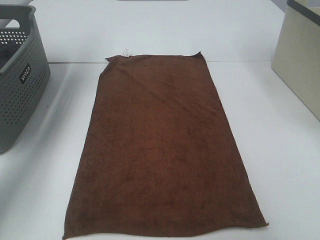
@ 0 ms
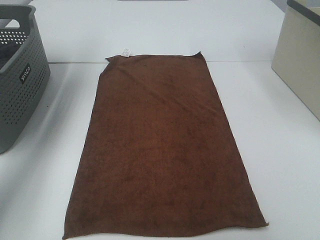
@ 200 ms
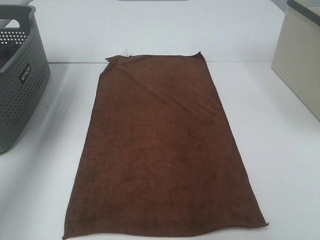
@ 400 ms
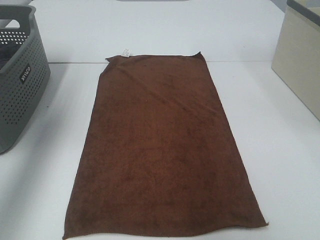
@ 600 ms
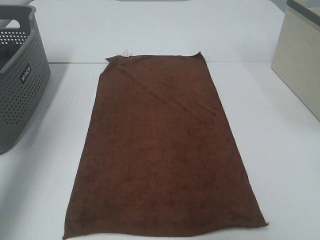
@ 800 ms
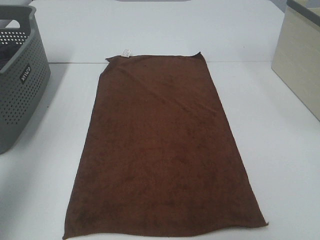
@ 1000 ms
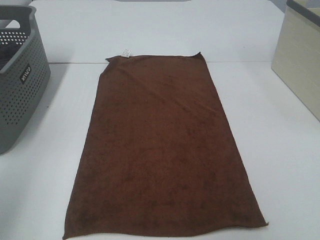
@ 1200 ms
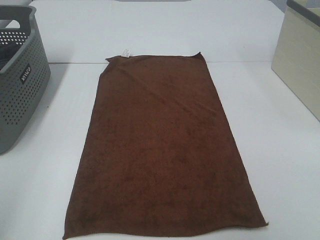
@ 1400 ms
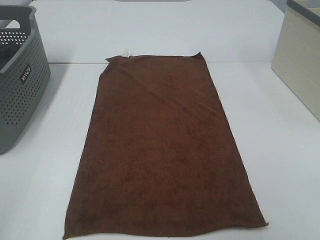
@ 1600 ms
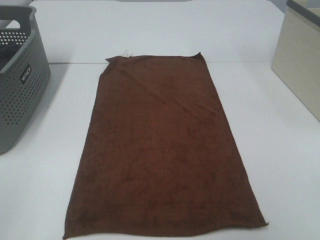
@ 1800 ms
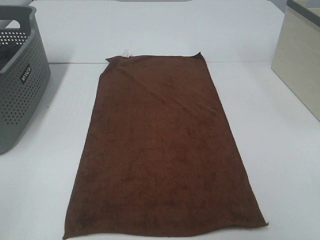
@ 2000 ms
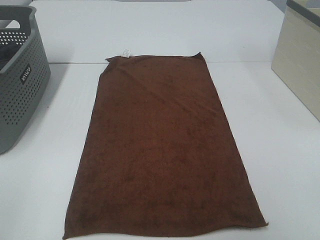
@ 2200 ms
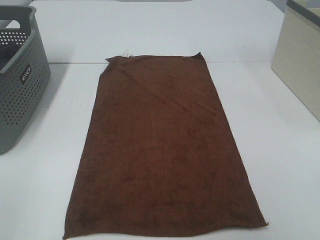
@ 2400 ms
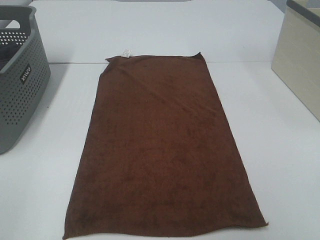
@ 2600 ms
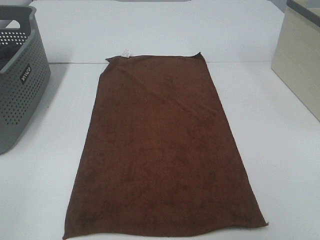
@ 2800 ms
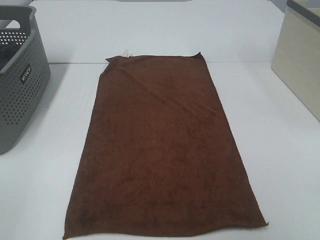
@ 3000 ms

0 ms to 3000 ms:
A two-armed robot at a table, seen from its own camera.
Task of the whole recording: Remove the towel and place it.
0 ms to 1600 ms: The left gripper moves backward, about 50 cm.

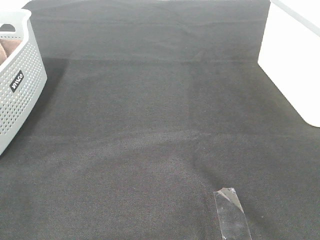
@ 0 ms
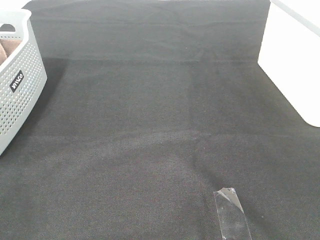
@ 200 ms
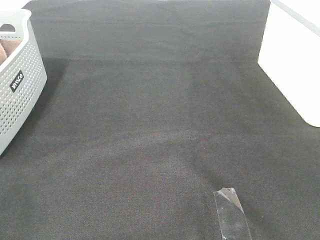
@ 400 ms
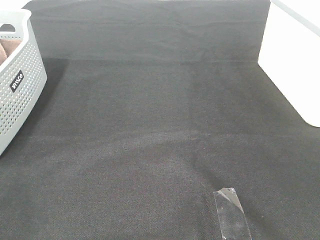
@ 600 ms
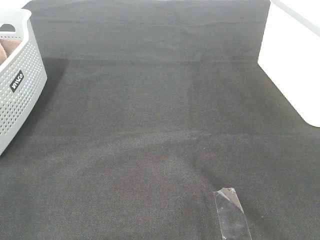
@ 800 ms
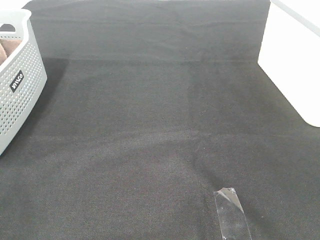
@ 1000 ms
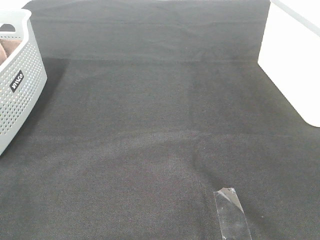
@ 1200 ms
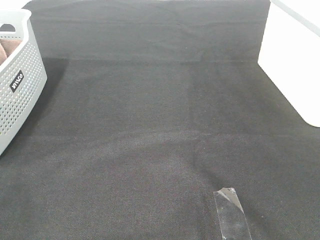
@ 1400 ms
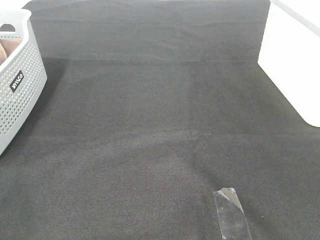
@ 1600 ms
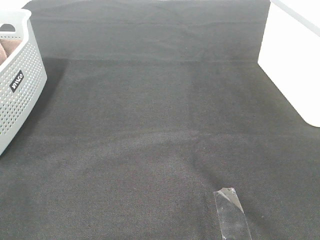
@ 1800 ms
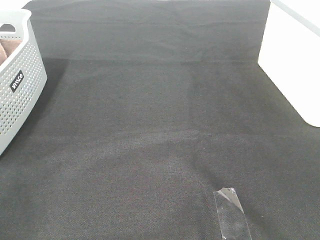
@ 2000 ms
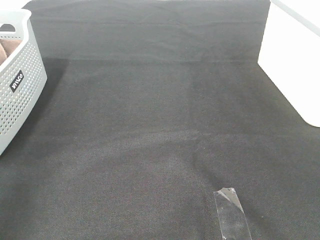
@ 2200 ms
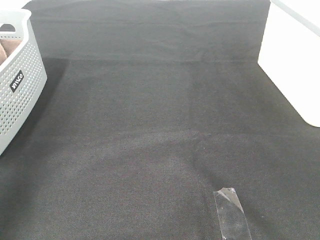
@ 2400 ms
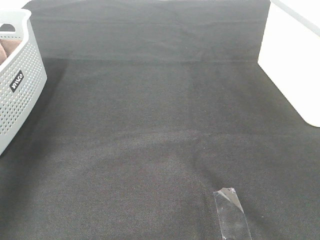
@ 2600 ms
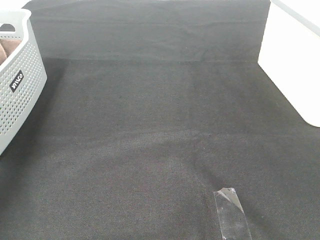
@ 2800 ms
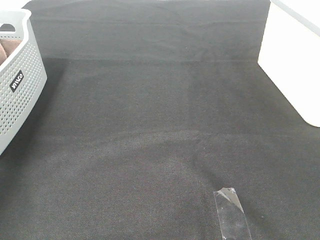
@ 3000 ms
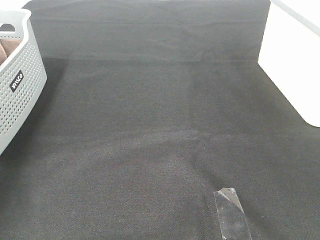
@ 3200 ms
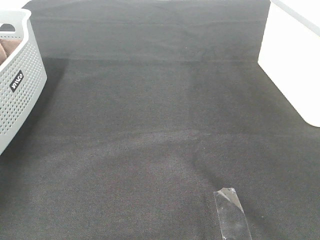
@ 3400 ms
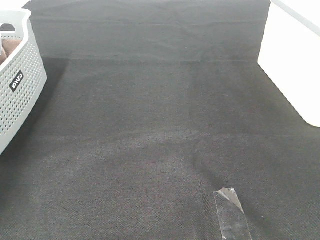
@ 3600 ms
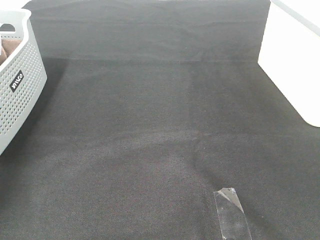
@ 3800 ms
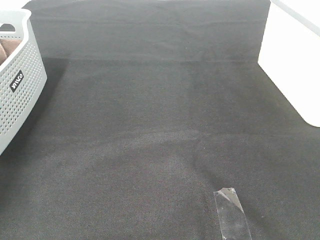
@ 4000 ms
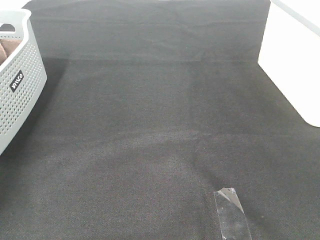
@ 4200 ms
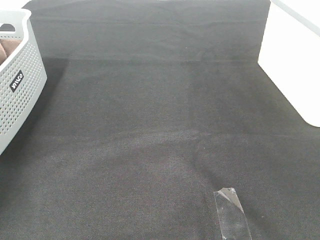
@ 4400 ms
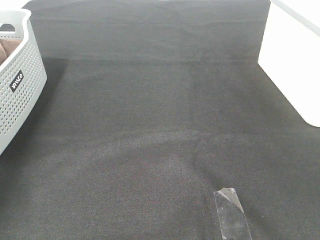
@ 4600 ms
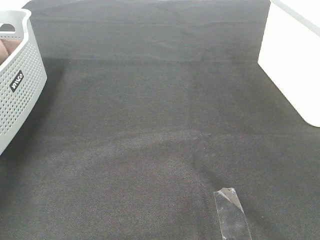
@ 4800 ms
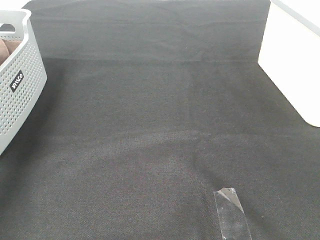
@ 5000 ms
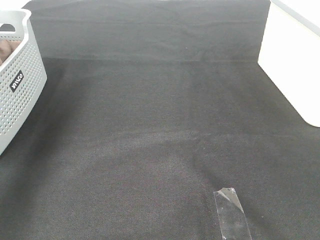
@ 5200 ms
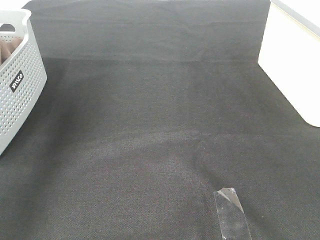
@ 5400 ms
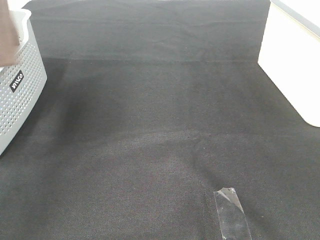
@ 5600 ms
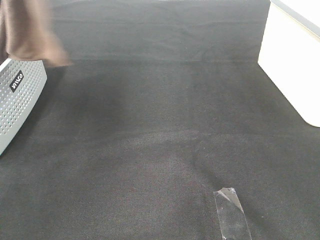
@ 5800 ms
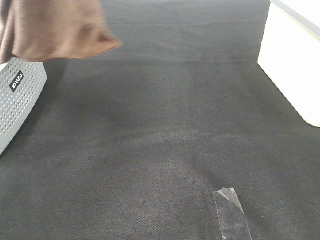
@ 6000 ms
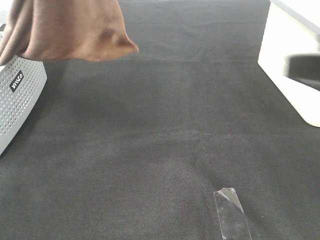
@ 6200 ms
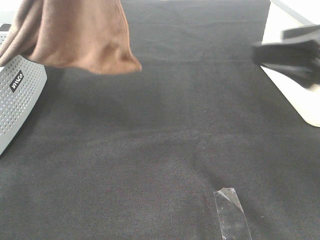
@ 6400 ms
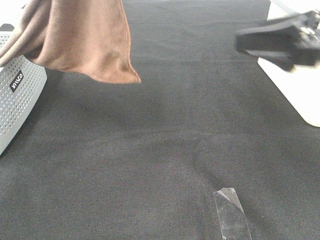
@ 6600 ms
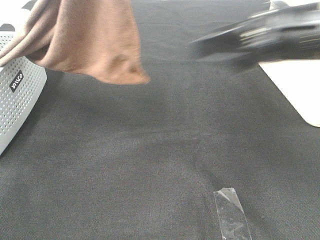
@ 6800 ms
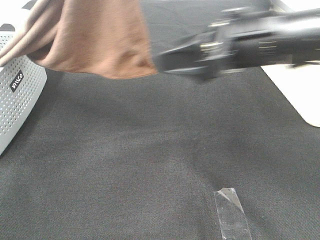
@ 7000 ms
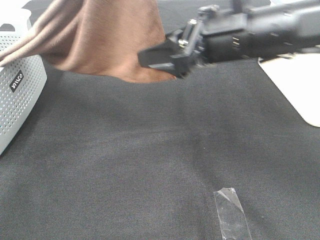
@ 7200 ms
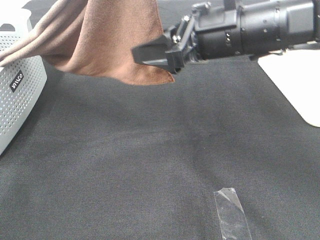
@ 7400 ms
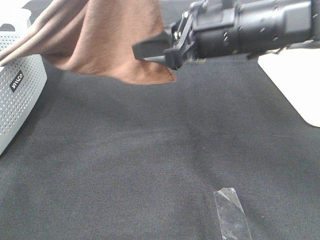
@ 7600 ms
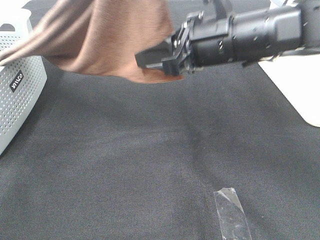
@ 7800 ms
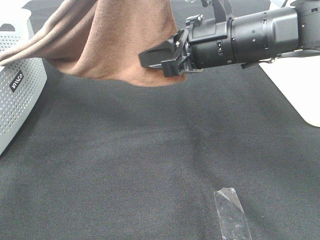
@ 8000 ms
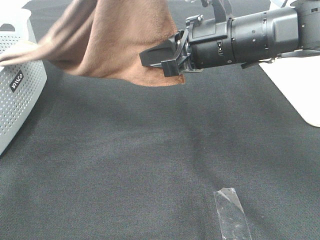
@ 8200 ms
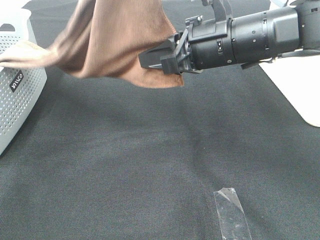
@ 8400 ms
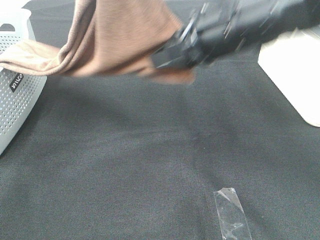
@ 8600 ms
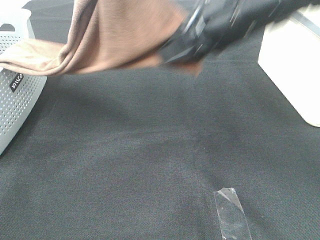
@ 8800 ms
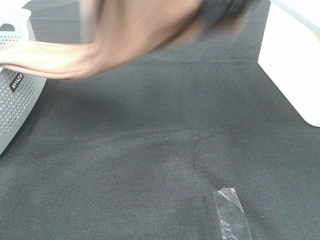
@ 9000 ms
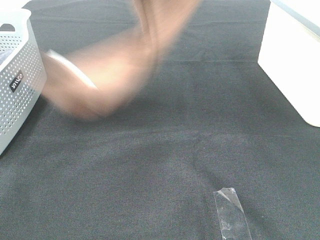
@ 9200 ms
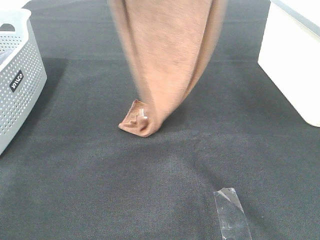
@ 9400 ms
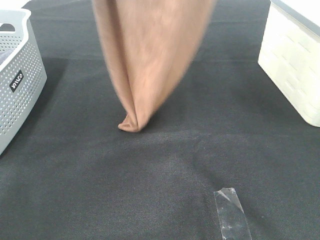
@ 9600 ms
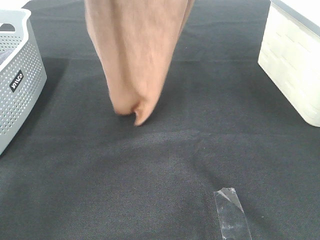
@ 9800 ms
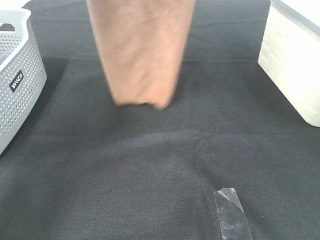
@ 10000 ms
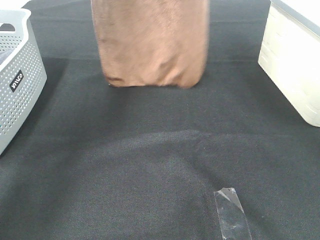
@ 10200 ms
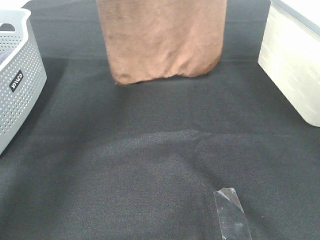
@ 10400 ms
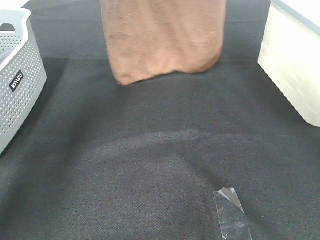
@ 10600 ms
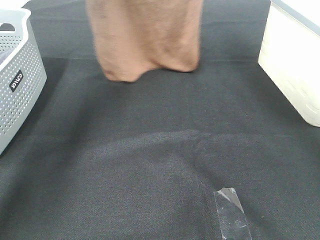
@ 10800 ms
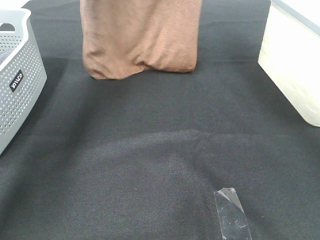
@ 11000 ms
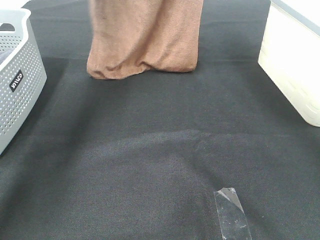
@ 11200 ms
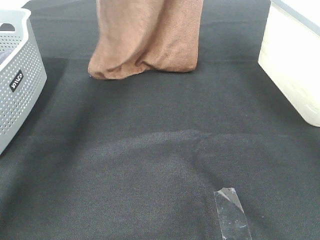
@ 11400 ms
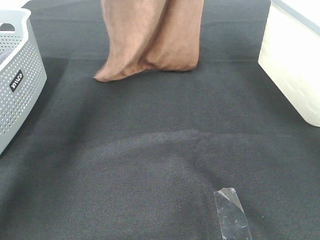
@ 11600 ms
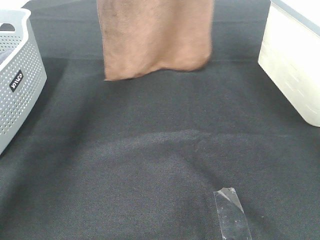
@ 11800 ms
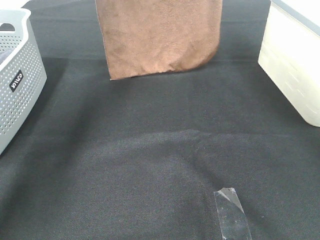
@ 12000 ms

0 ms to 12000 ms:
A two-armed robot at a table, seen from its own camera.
Task of the whole recording: Remove the towel and place it.
Step, 5800 ms to 8200 ms: Right hand: grab a corner of the brown towel and straighten it.
0 ms to 1600 ms: Both grippers stay put.
1600 ms to 3000 ms: The left gripper moves forward, about 40 cm.
4400 ms to 6000 ms: The right gripper shifts about 10 cm forward. The left gripper heads upward, to the right and backward, covering approximately 40 cm.
6000 ms to 7600 ms: The left gripper moves to the right, roughly 10 cm. The right gripper heads forward and to the left, covering approximately 25 cm.
7600 ms to 9000 ms: The right gripper heads upward, covering some 15 cm, and closes up.
9000 ms to 10400 ms: The right gripper shifts about 15 cm forward and upward. Meanwhile the left gripper is displaced forward and to the left by some 15 cm.
10400 ms to 12000 ms: The grippers make only small movements.

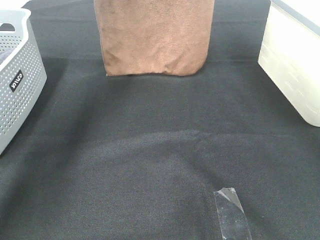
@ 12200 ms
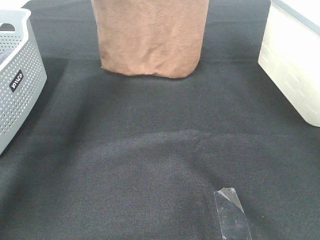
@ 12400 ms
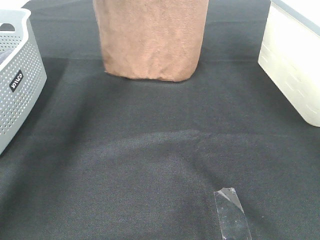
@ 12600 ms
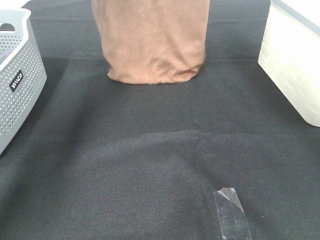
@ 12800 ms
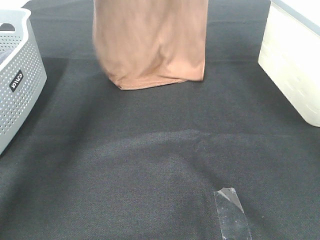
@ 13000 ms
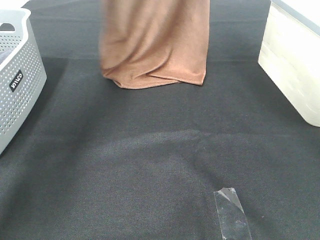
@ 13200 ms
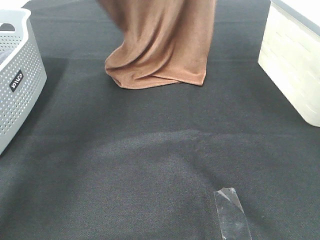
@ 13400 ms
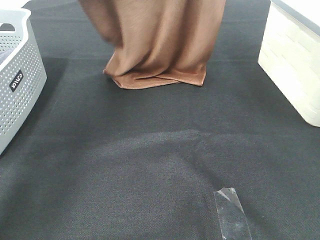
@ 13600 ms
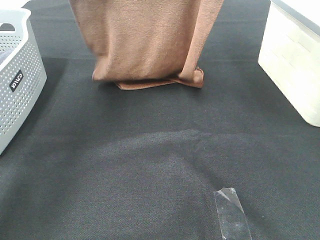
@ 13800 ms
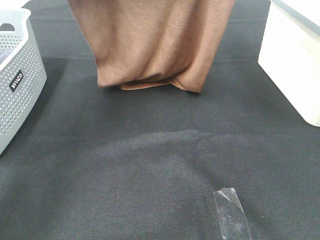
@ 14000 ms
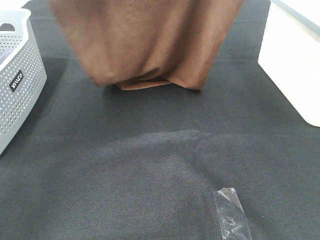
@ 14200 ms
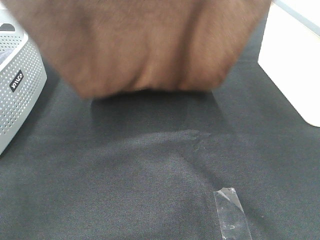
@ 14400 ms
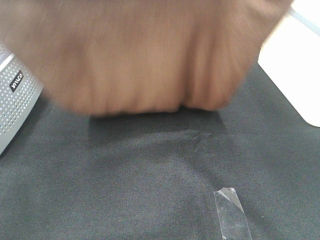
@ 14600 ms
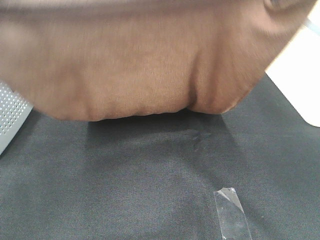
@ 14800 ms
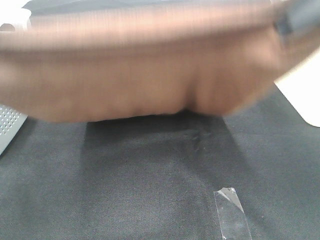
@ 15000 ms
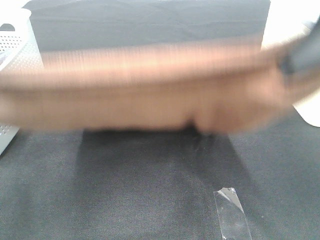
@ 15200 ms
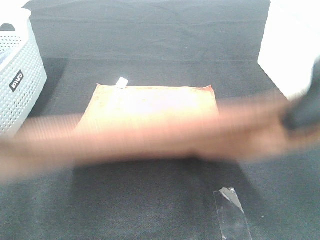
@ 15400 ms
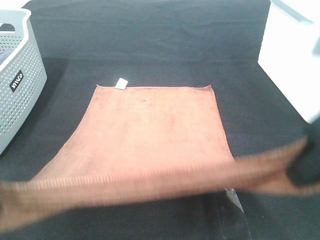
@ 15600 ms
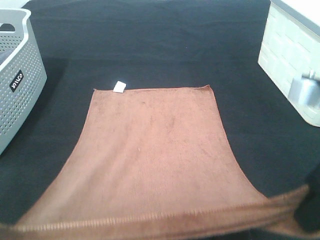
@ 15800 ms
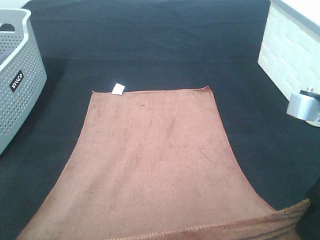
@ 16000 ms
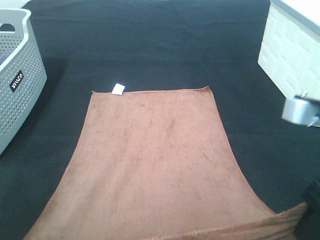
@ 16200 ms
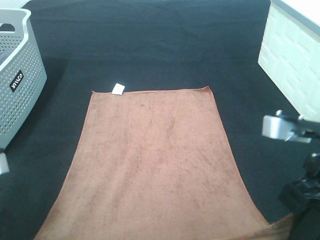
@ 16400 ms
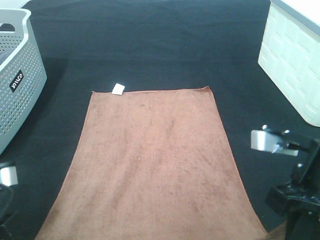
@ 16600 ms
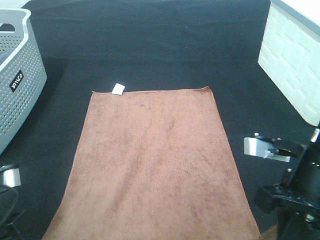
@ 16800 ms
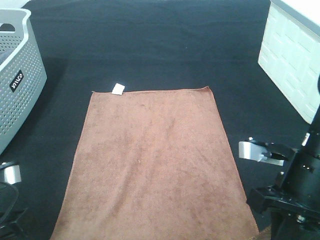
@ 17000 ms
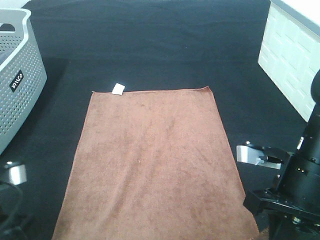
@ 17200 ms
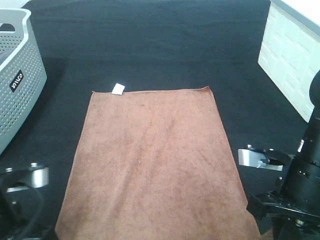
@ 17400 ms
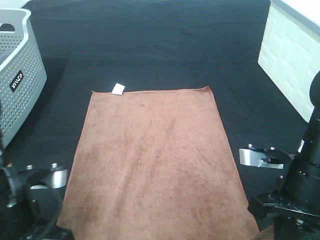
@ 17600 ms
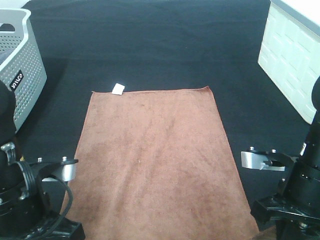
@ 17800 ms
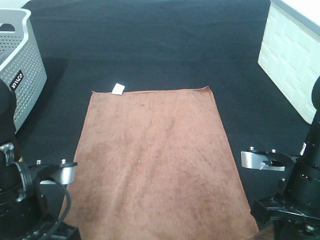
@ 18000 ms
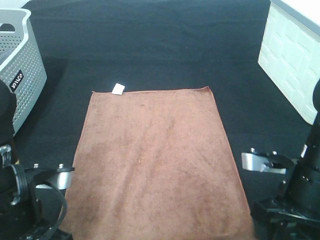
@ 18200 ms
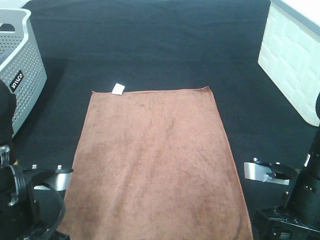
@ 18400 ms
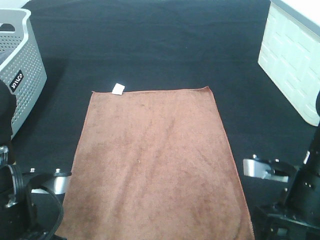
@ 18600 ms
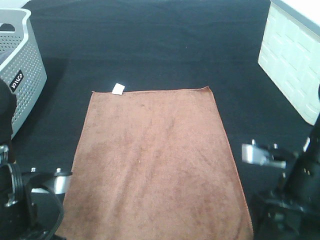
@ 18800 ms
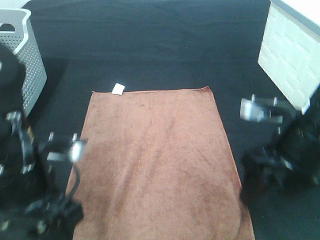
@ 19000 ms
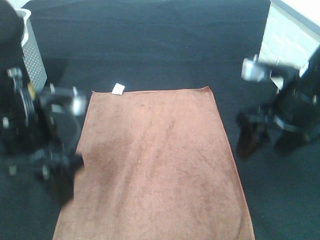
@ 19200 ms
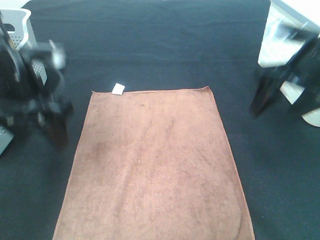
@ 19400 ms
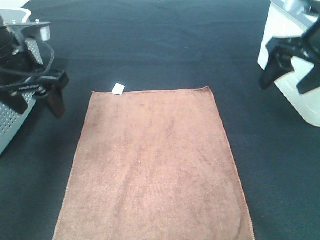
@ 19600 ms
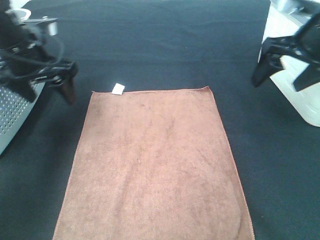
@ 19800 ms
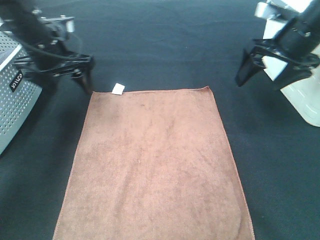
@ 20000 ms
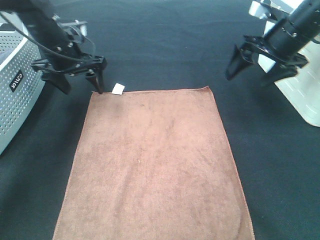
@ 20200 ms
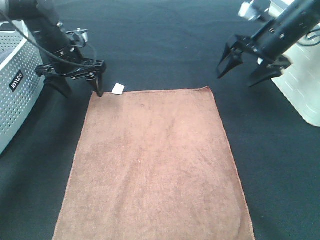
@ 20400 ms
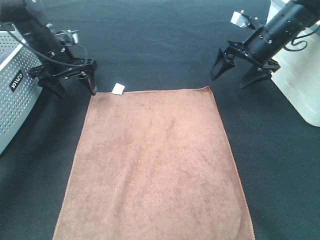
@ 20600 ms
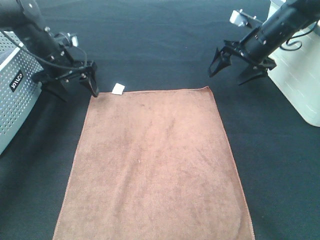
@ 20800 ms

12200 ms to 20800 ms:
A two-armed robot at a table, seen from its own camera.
Task of the whole recording: Remove the towel and place it.
Step, 12200 ms to 14600 ms: Left hand: spread the brown towel flat on the table.
Step, 12200 ms to 14600 ms: Right hand: spread the brown towel flat on the table.
12200 ms to 13600 ms: The grippers both shift backward by approximately 10 cm.
13600 ms to 15000 ms: The two grippers go approximately 25 cm backward.
15000 ms to 16600 ms: The two grippers go about 20 cm downward.
16600 ms to 18000 ms: The left gripper goes approximately 5 cm to the right. Meanwhile the right gripper changes place by some 5 cm.
18000 ms to 19400 ms: Both grippers travel together forward and upward, about 15 cm. The left gripper opens up. The right gripper opens up.
19400 ms to 20800 ms: Both grippers move forward and downward, roughly 20 cm.
